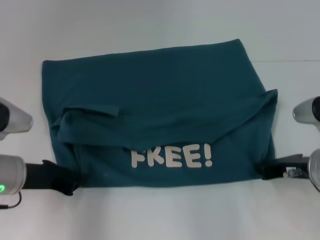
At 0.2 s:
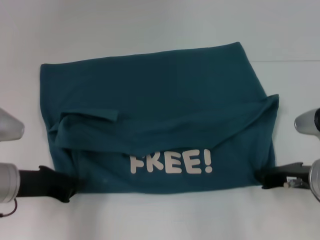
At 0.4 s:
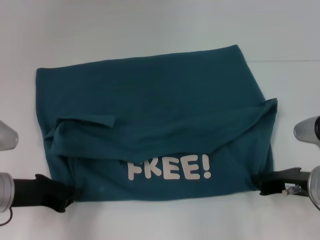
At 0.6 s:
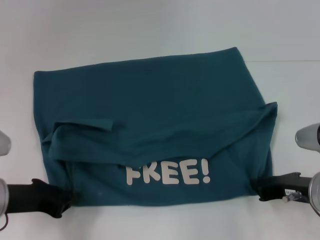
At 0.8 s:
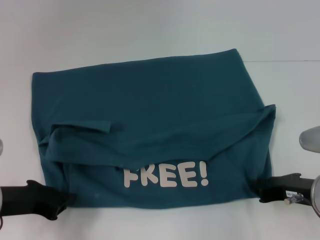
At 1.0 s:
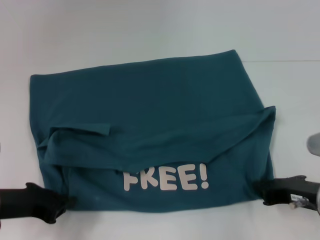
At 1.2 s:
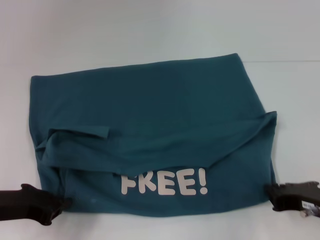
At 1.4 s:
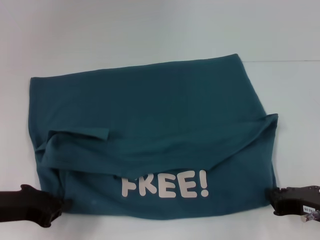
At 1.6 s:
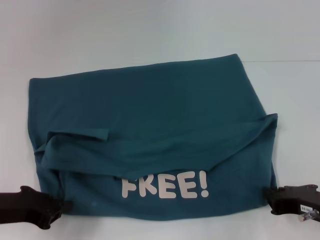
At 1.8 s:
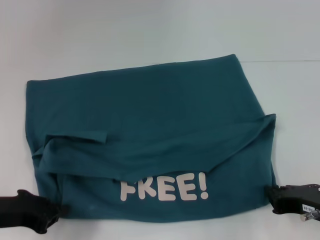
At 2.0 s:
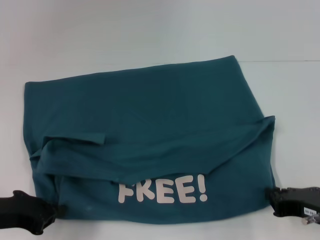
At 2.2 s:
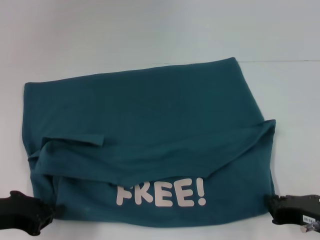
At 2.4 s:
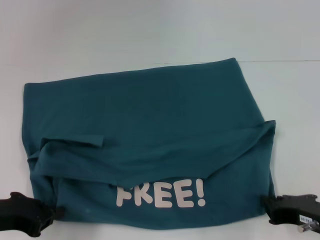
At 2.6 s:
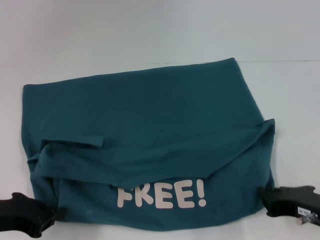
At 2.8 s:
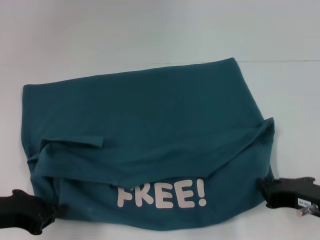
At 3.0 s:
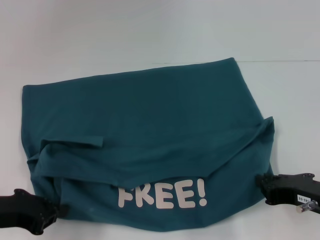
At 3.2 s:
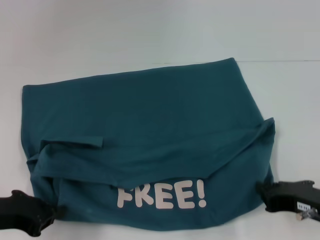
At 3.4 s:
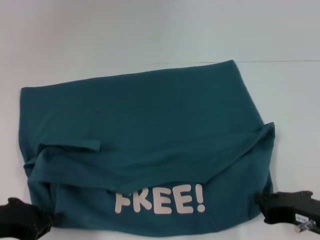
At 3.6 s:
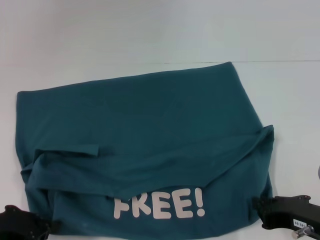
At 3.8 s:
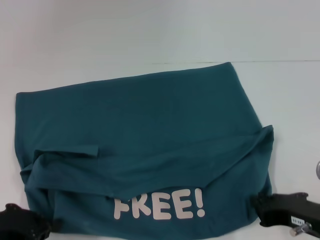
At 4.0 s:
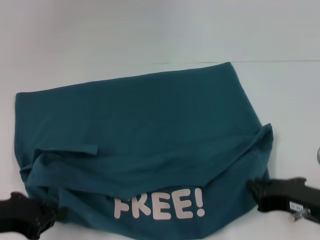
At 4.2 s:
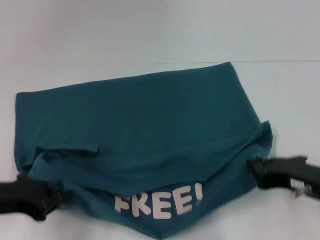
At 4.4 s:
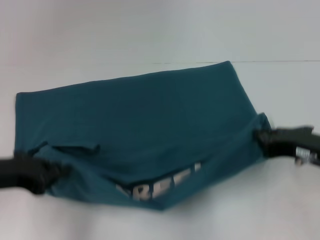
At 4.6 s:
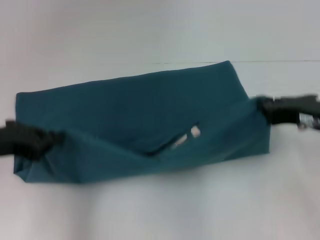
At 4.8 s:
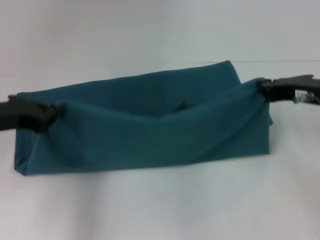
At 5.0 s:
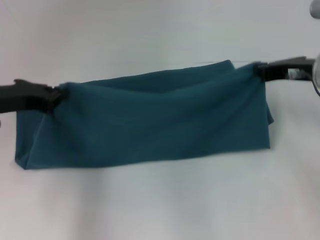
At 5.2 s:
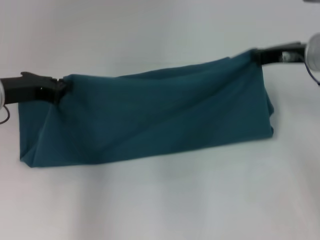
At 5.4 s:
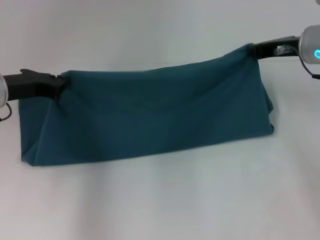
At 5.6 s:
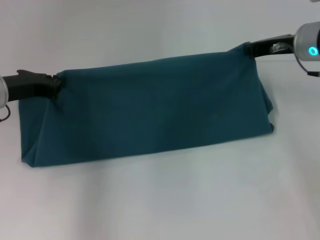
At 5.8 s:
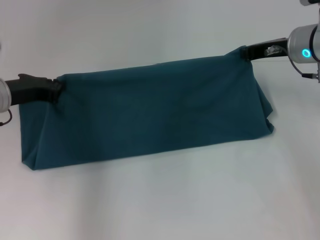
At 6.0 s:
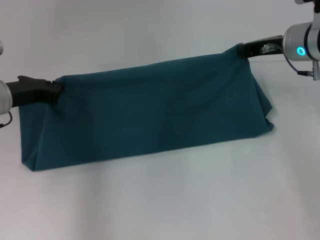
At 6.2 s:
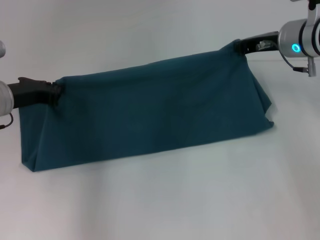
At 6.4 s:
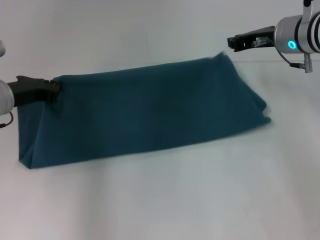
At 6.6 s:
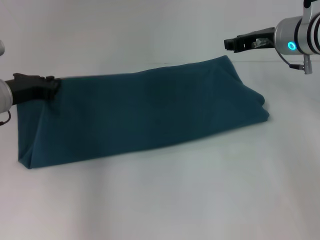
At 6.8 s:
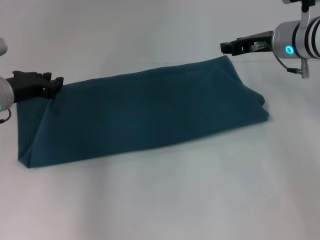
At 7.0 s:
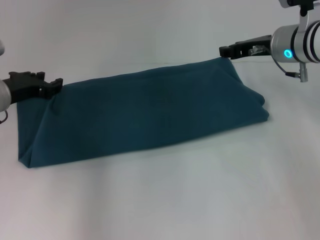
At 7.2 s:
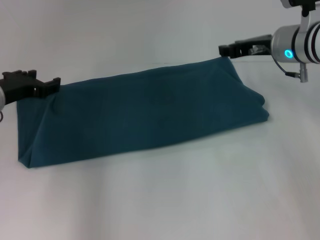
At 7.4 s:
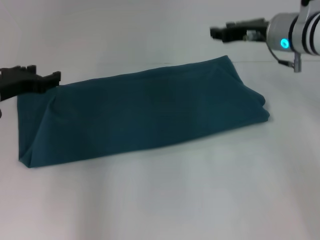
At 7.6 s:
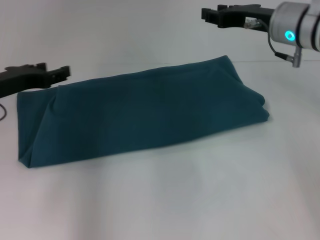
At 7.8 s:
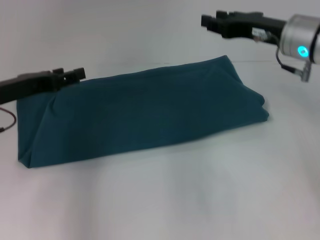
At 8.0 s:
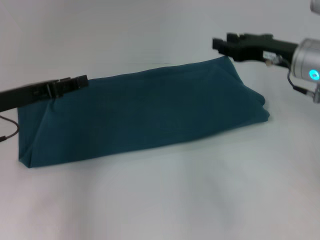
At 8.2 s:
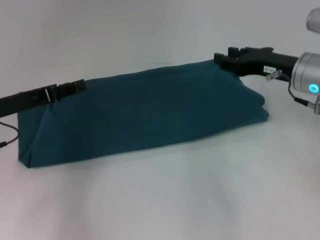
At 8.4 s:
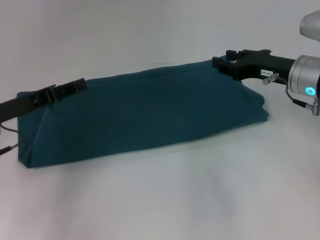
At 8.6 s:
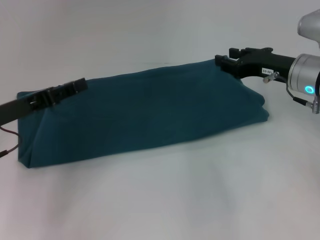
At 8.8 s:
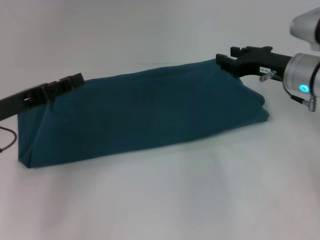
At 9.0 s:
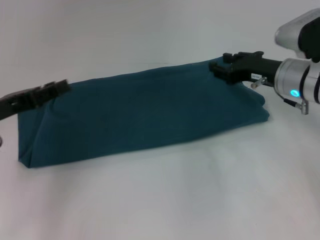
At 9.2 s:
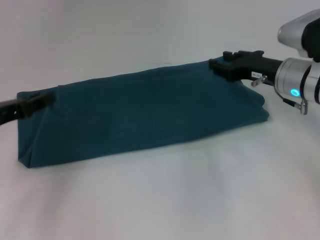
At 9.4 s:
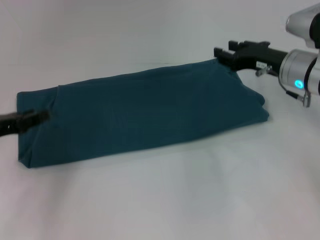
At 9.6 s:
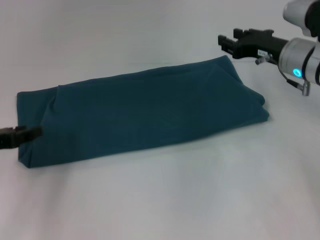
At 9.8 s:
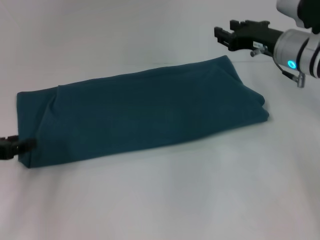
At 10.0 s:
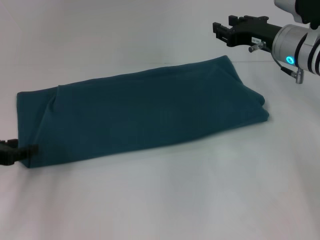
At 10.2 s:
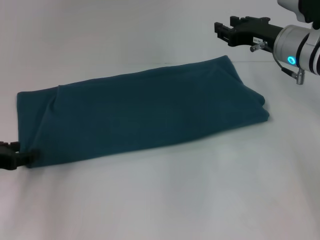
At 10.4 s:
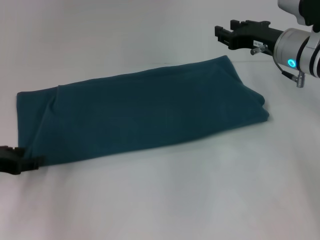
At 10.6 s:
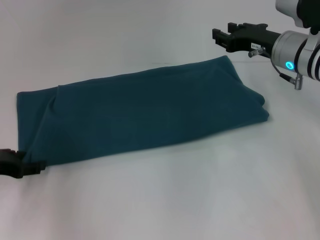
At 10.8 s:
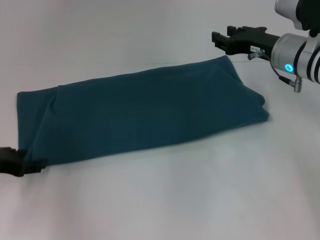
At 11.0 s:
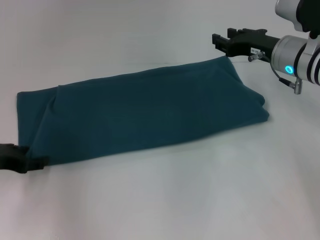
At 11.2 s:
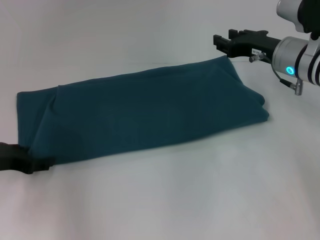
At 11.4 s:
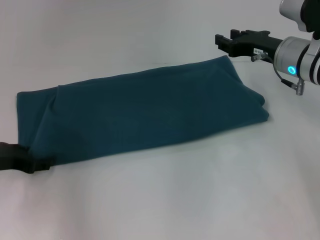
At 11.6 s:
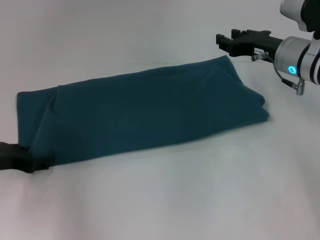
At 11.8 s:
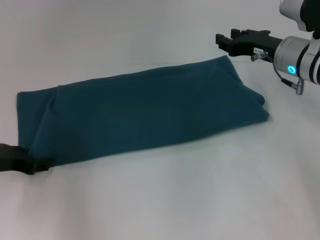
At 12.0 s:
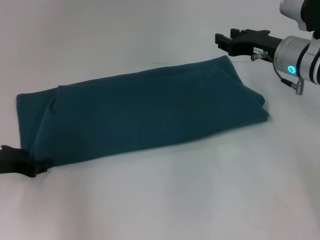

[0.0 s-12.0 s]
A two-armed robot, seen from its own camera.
Step, 0.0 to 3.6 s: Pull the clothes with your left hand.
Step, 0.0 to 3.6 s: Pull the clothes with your right hand.
Step, 3.8 to 7.2 s: Fold the clothes to the left.
Step, 3.8 to 7.2 s: Fold the clothes to the right.
0.0 to 1.6 s: Both grippers move backward, roughly 5 cm.
1.6 to 3.0 s: The grippers stay close to where they were, moving slightly.
3.0 to 4.4 s: The right gripper shifts by approximately 5 cm.
4.4 to 6.0 s: The left gripper moves forward, approximately 15 cm; the right gripper shifts roughly 20 cm forward.
6.0 to 7.6 s: The right gripper opens up, while the left gripper opens its fingers.
7.6 to 9.0 s: The left gripper shifts roughly 5 cm backward; the right gripper is displaced downward by about 5 cm.
10.4 to 12.0 s: There are only small adjustments of the grippers.

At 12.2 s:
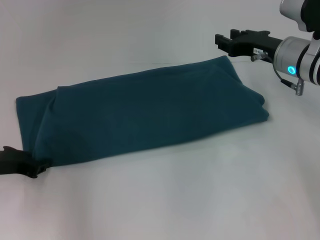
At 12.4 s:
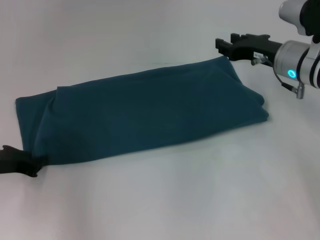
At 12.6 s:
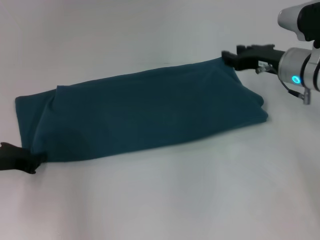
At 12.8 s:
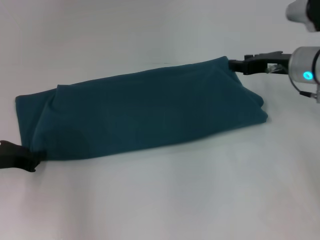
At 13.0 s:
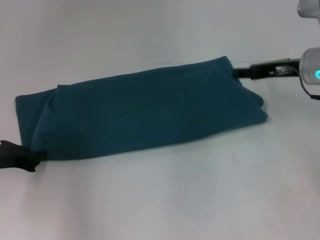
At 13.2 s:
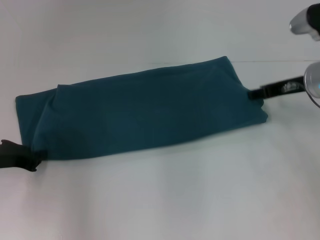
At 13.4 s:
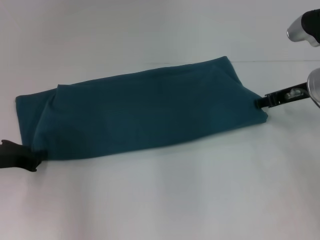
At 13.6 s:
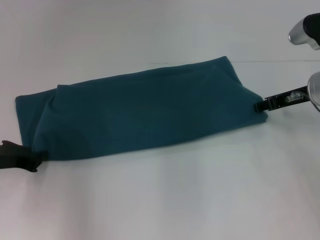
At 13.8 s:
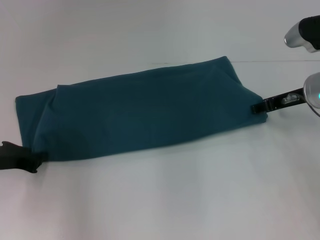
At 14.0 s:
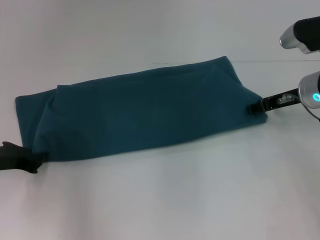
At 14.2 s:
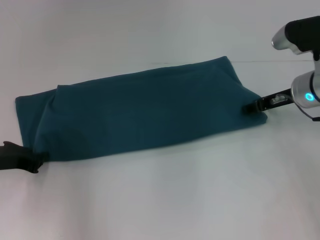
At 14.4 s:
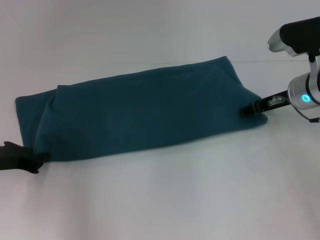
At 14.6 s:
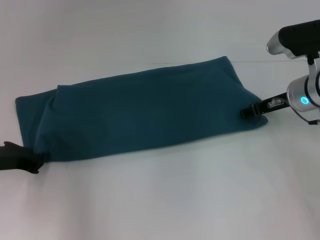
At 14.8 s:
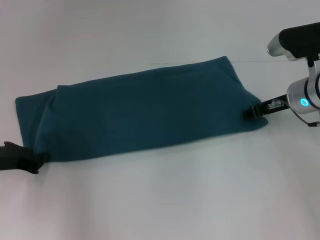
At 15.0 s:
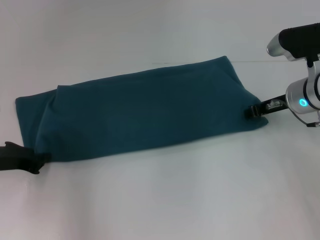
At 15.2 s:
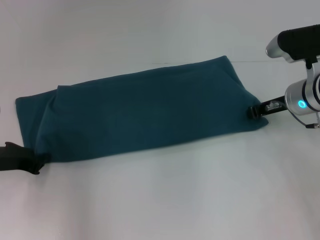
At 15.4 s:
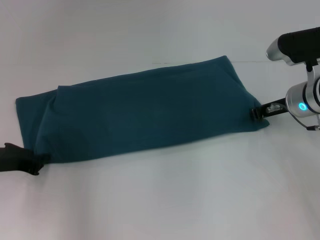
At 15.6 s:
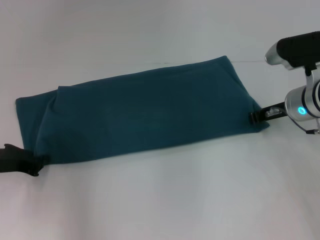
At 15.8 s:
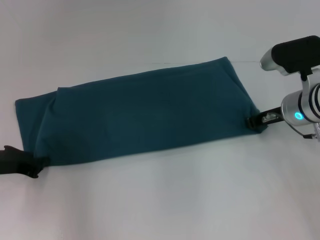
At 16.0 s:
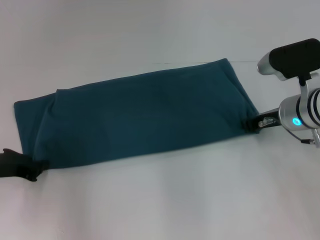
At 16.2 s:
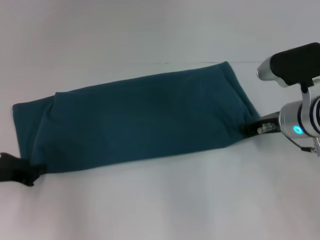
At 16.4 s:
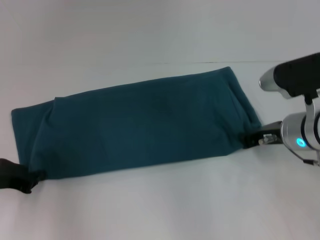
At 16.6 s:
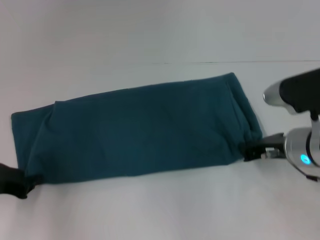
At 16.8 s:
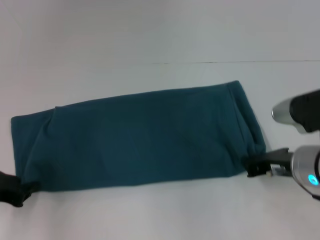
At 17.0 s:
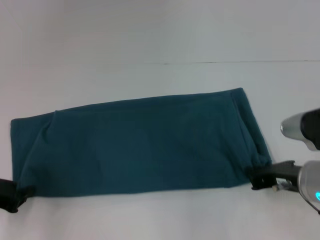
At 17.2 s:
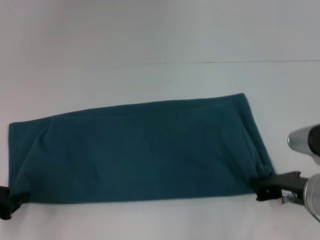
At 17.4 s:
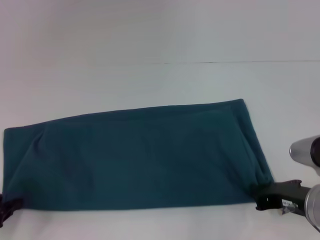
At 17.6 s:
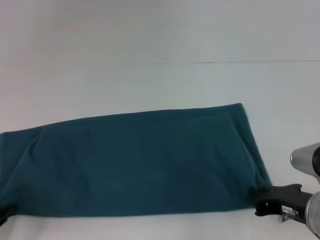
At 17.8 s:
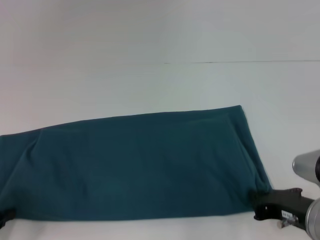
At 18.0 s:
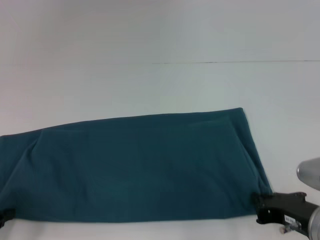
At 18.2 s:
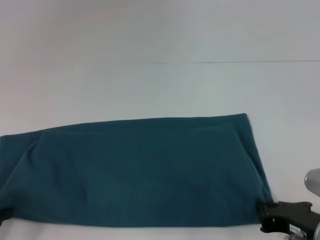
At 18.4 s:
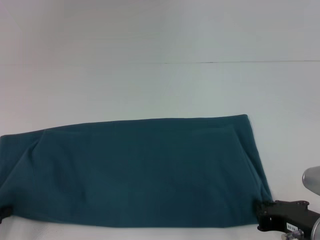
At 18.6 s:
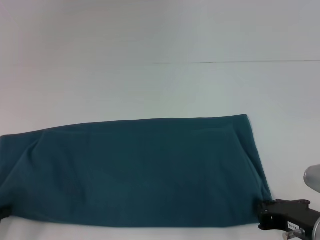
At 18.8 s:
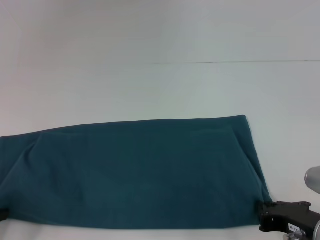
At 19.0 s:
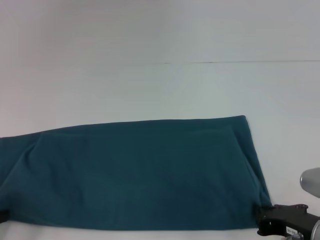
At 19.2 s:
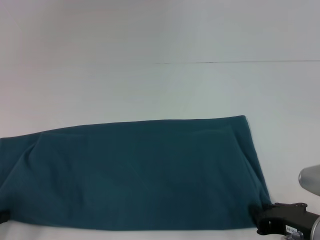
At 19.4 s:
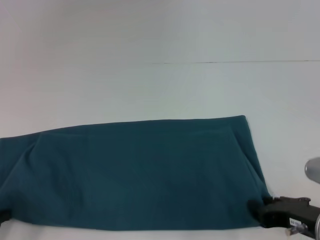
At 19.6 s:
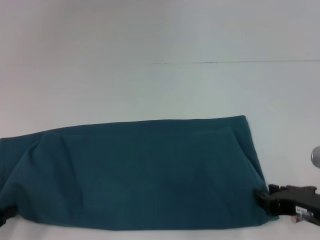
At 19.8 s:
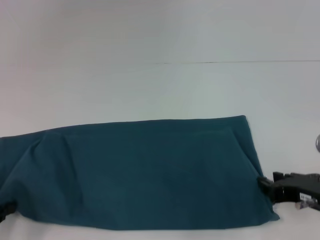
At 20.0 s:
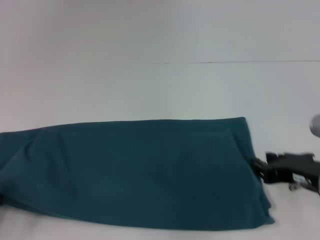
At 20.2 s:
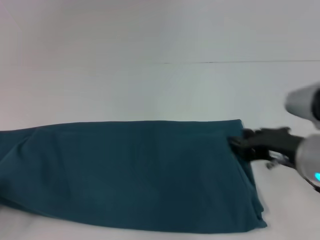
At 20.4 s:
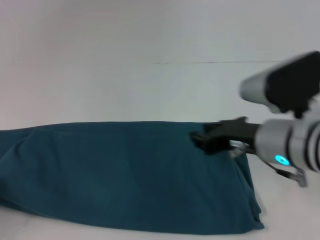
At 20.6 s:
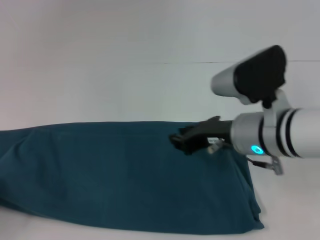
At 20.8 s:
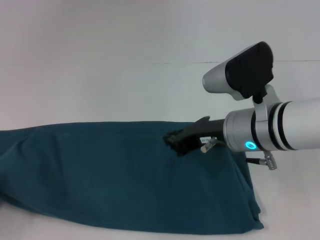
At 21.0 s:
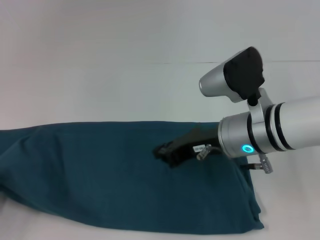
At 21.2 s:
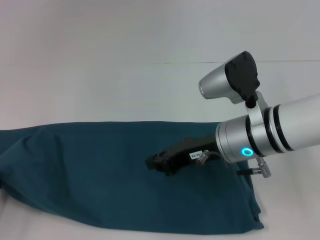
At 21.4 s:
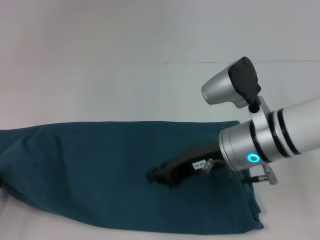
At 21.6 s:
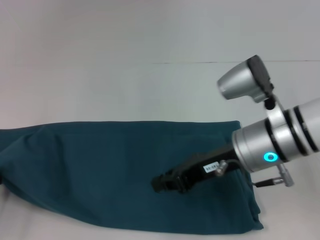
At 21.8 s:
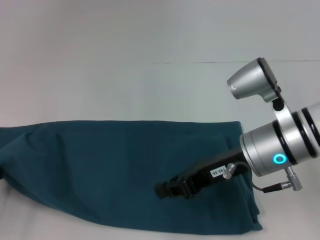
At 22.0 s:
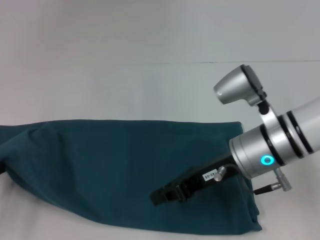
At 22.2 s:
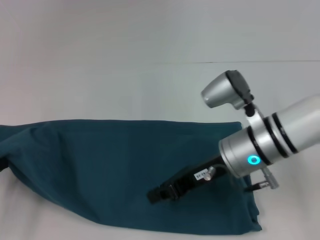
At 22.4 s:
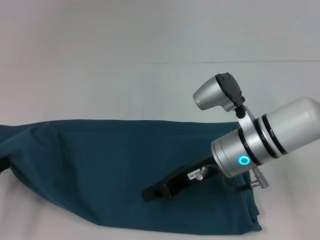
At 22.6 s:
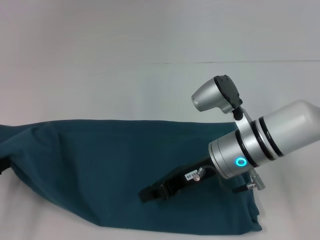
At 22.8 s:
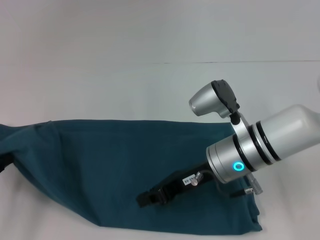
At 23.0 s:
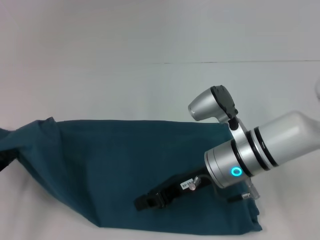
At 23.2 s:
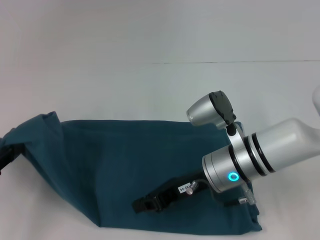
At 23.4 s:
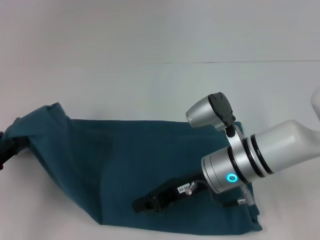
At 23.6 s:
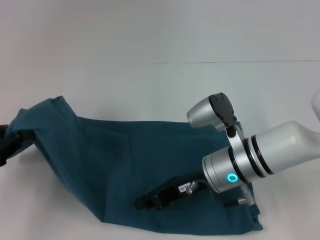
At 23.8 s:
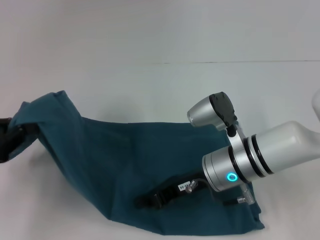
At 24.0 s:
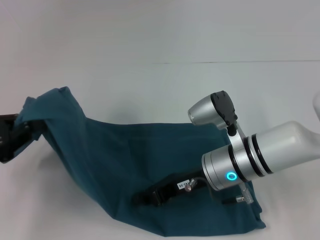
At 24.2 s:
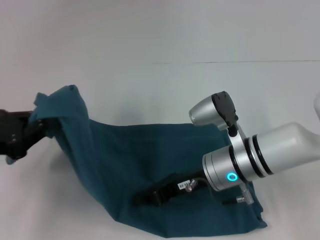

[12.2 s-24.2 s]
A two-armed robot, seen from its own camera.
12.2 to 13.8 s: The left gripper closes its fingers.
13.8 to 15.2 s: The right gripper closes its fingers.
15.2 to 16.6 s: The right gripper moves backward, approximately 10 cm.
16.6 to 18.2 s: The left gripper is displaced backward by roughly 5 cm. The right gripper shifts approximately 15 cm backward.
18.2 to 19.8 s: The right gripper opens its fingers.
19.8 to 21.2 s: The right gripper heads forward and to the left, covering approximately 15 cm.
21.2 to 22.6 s: The grippers make only small movements.
22.6 to 24.2 s: The left gripper shifts by roughly 5 cm.
